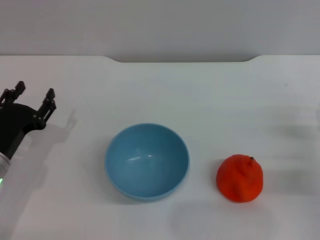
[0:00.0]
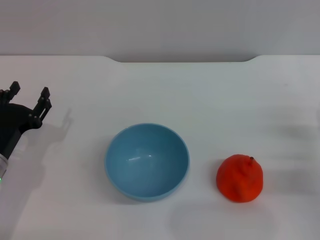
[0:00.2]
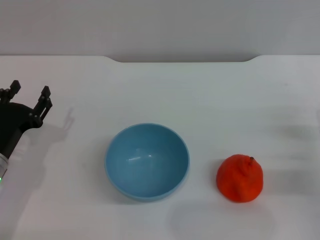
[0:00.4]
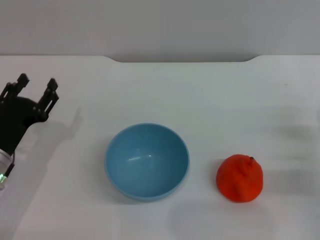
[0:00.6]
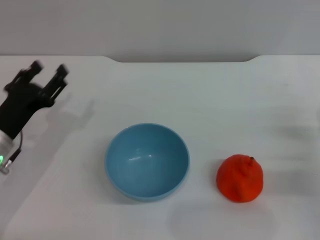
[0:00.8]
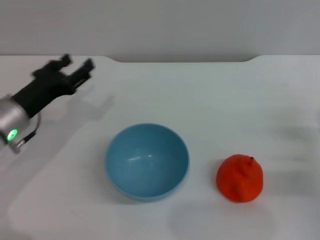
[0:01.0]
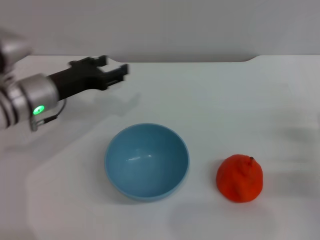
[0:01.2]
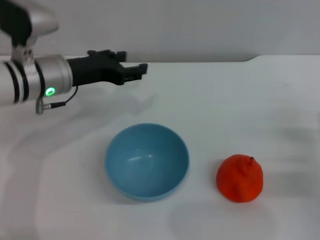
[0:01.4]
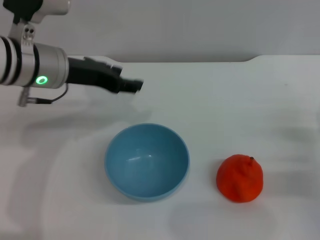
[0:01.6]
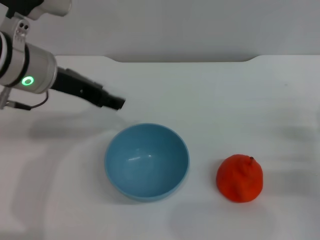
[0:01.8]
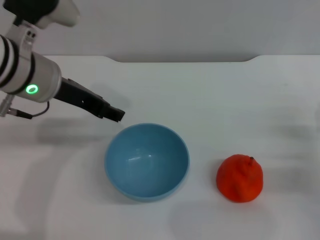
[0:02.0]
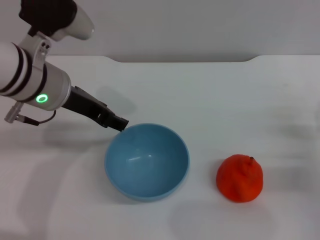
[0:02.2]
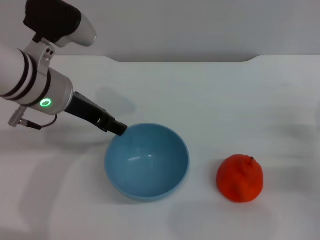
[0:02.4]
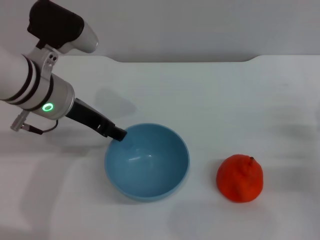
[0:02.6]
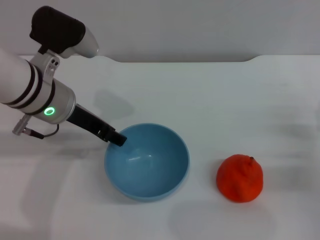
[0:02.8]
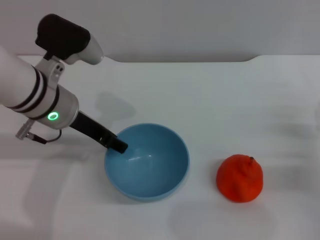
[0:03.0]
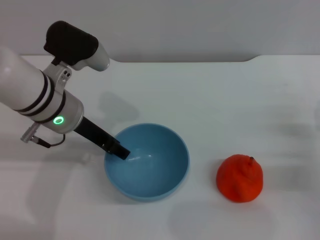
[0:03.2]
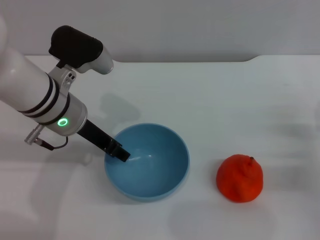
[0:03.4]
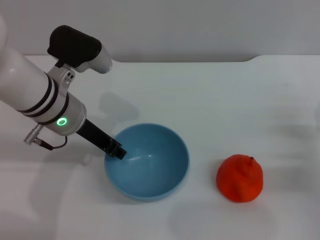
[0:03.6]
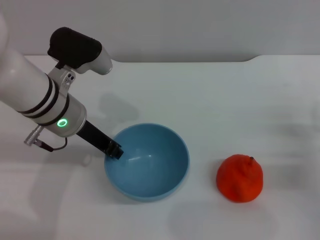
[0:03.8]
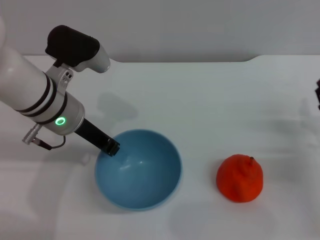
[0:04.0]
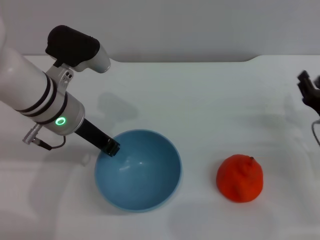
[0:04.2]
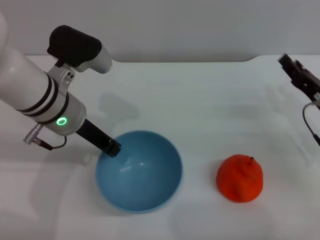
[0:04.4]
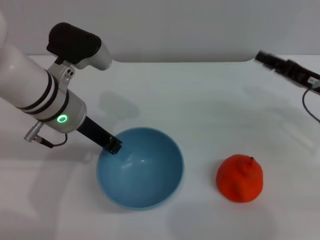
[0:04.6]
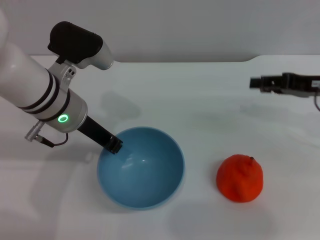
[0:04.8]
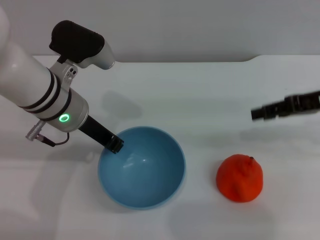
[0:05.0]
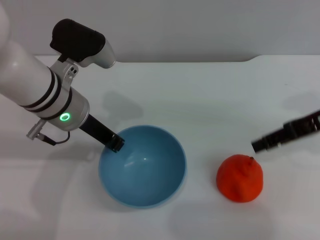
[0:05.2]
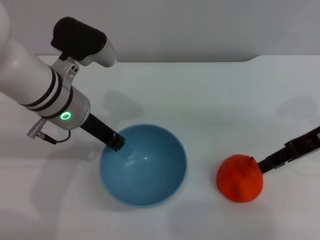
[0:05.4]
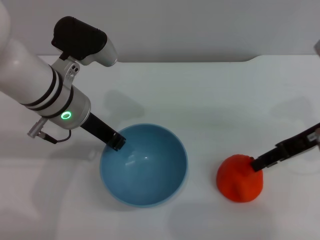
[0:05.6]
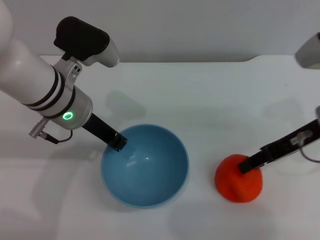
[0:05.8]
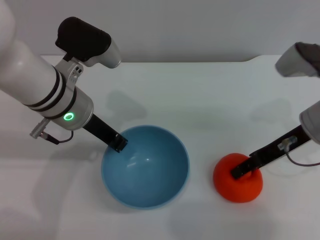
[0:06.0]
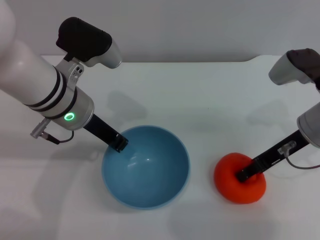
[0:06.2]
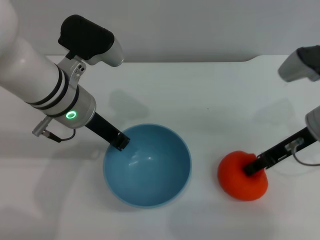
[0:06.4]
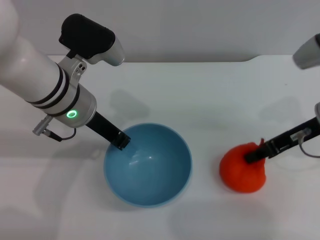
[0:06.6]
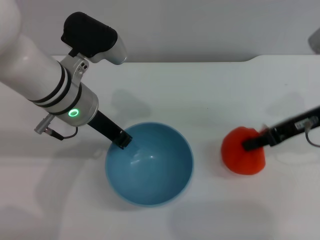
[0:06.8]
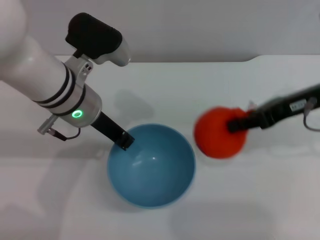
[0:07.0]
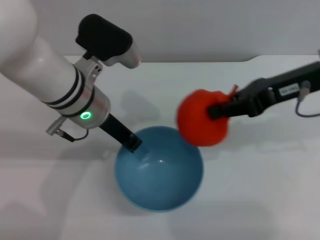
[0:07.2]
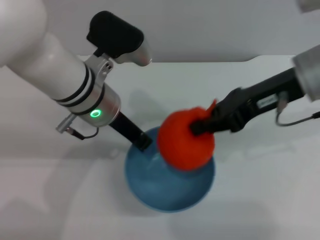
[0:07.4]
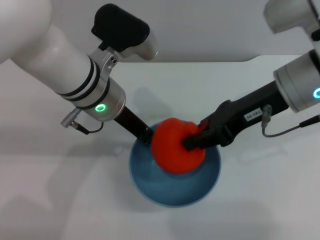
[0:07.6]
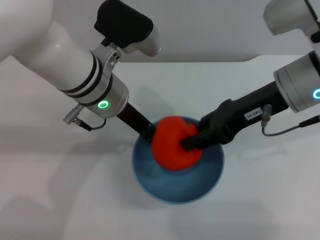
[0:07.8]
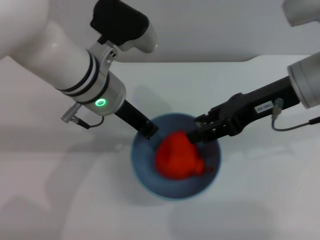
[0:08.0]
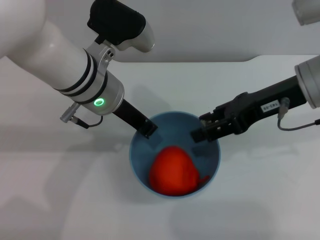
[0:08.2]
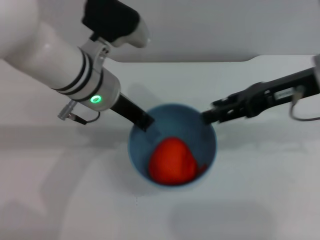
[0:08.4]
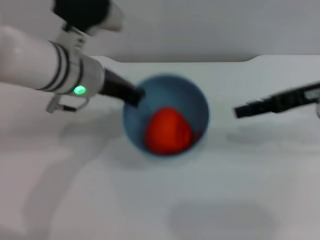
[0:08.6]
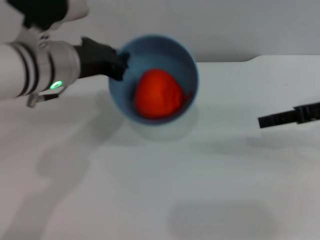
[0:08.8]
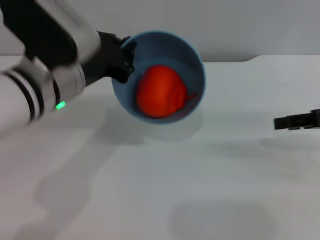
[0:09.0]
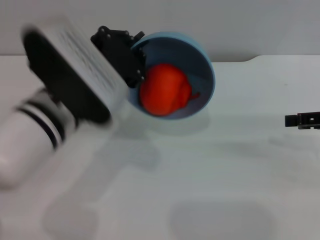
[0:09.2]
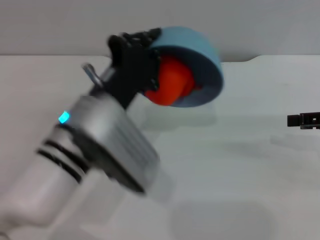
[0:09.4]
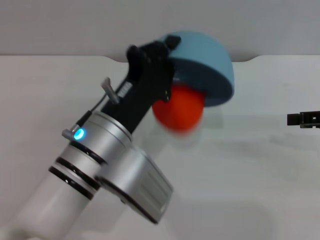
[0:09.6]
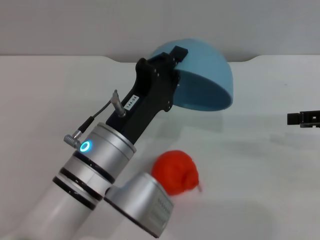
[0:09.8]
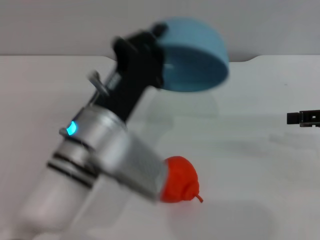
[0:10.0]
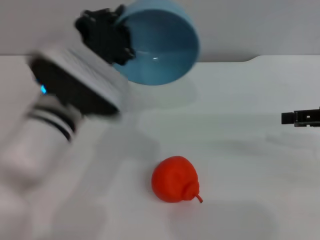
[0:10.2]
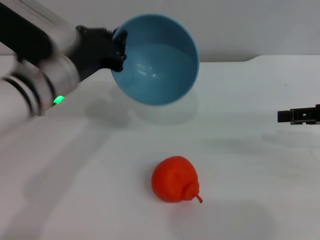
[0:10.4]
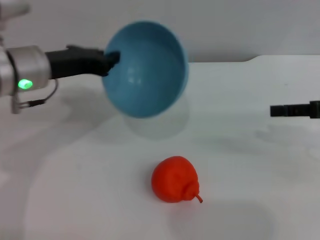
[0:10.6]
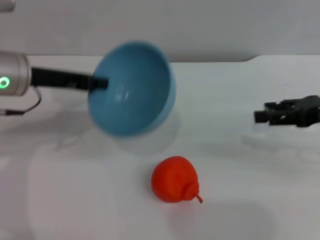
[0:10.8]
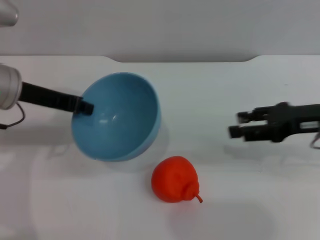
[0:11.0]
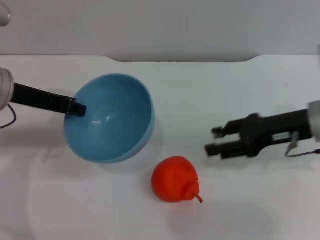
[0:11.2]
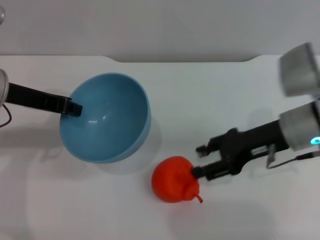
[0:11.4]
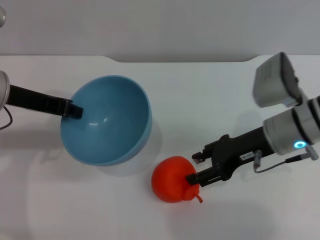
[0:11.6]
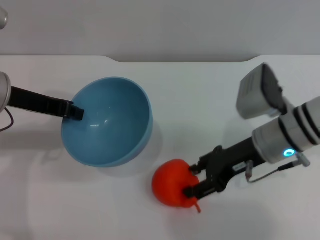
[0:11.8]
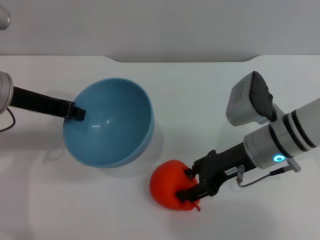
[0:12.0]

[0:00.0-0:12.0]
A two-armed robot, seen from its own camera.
Task of the whole recording: put the orange into the blue bowl and pour it out repeatedly.
Step, 0:00.0 to 0:05.6: Pick up the bowl with the left gripper.
Step, 0:05.8 to 0:06.8: Pick up the orange with the right gripper.
Step, 0:07.0 to 0:08.4: Place the orange into the bowl.
Step, 0:08.6 to 0:09.8: Pour the orange out of the bowl.
0:00.0 to 0:01.6: The left gripper shifts some 20 cm upward, forward and to the right.
0:03.0 to 0:04.4: The right gripper travels forward by some 5 cm; the left gripper closes its fingers.
0:04.4 to 0:06.0: The right gripper heads upward and to the left, covering approximately 10 cm.
0:06.0 to 0:07.6: The right gripper travels upward and to the left by about 10 cm, and closes its fingers.
0:07.6 to 0:09.0: The left gripper heads backward, covering some 5 cm. The right gripper shifts about 15 cm to the right, and opens its fingers.
0:09.0 to 0:10.4: The left gripper moves approximately 5 cm backward and comes back.
0:10.4 to 0:12.0: The left gripper heads to the left, covering some 5 cm, while the right gripper is displaced to the left and downward by roughly 20 cm.

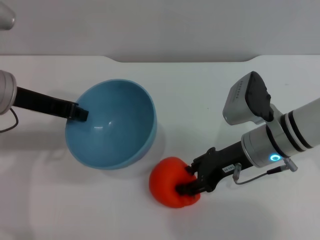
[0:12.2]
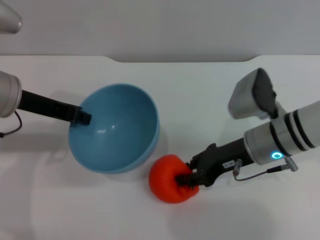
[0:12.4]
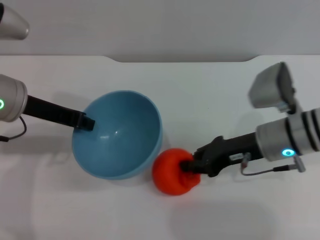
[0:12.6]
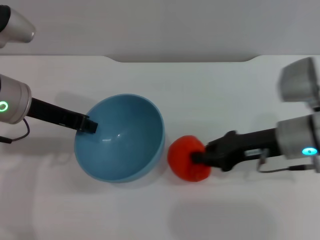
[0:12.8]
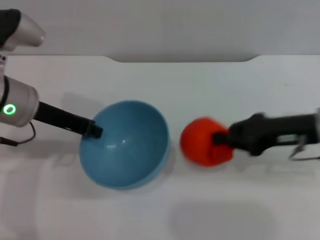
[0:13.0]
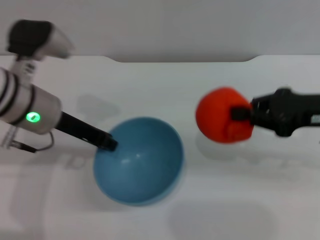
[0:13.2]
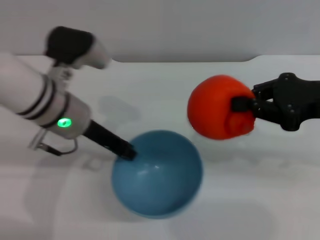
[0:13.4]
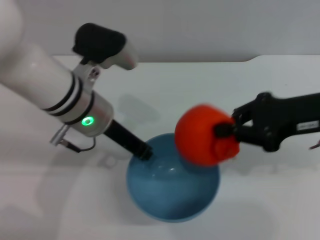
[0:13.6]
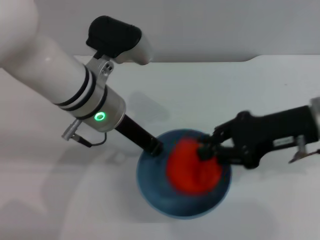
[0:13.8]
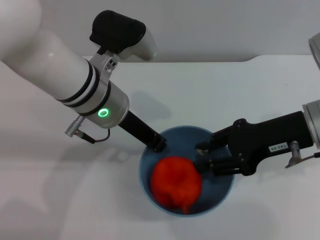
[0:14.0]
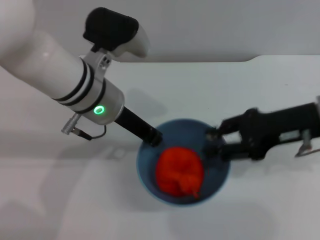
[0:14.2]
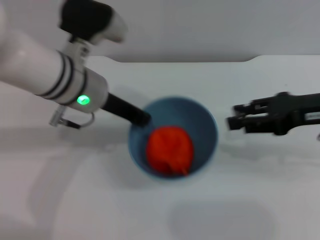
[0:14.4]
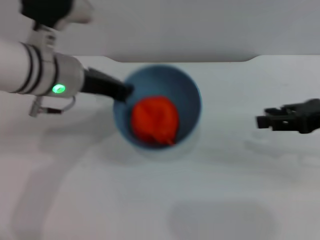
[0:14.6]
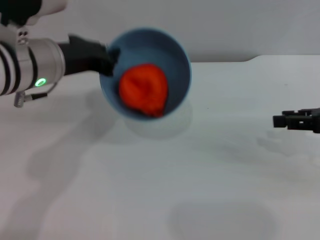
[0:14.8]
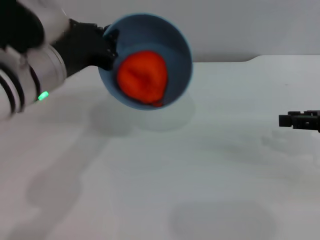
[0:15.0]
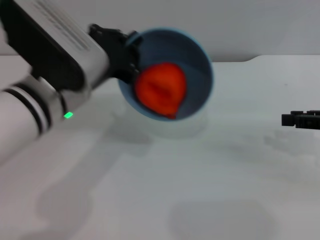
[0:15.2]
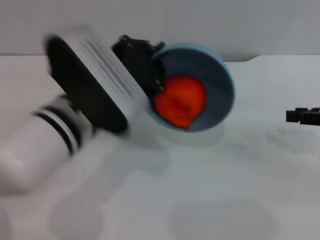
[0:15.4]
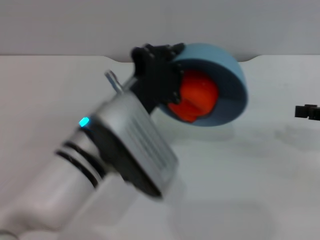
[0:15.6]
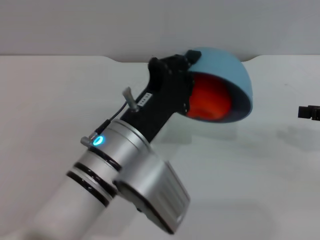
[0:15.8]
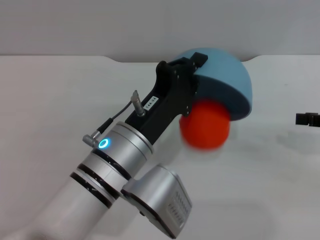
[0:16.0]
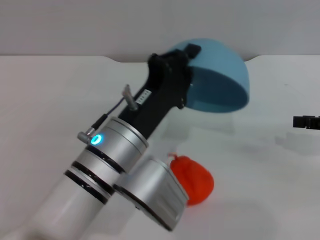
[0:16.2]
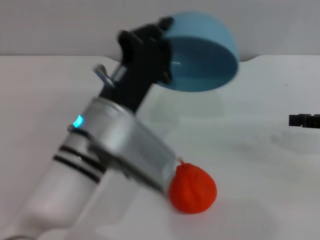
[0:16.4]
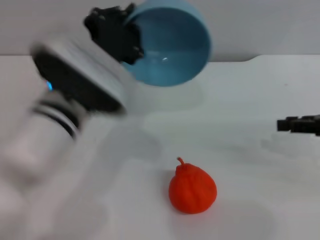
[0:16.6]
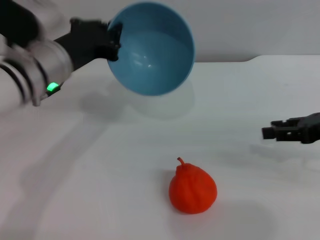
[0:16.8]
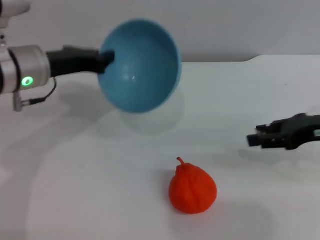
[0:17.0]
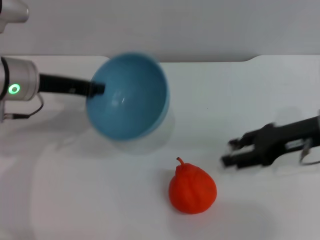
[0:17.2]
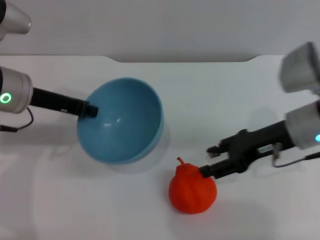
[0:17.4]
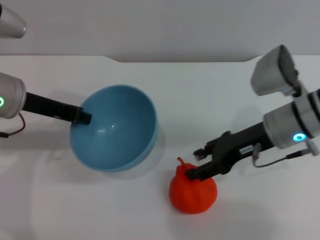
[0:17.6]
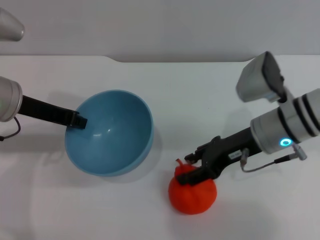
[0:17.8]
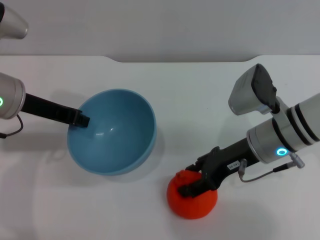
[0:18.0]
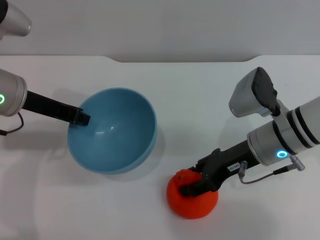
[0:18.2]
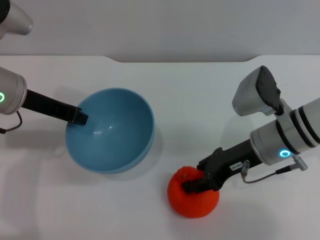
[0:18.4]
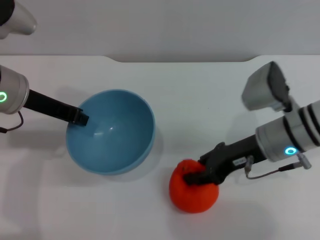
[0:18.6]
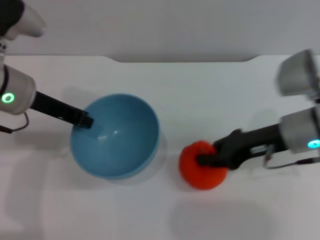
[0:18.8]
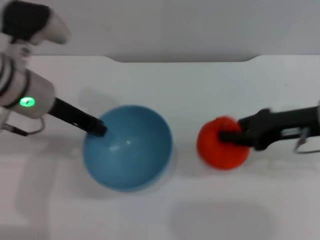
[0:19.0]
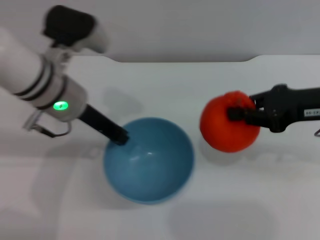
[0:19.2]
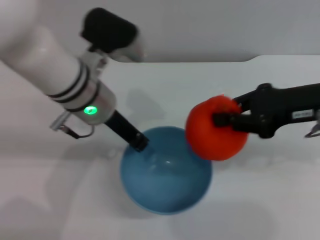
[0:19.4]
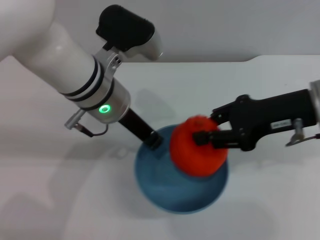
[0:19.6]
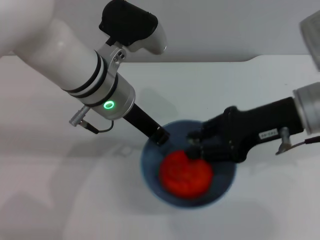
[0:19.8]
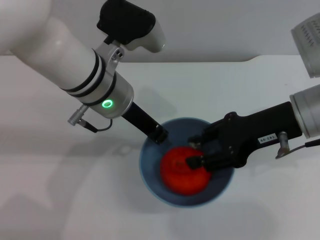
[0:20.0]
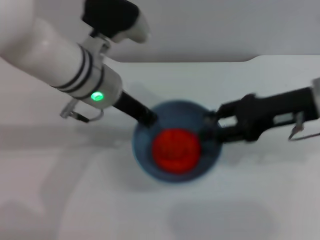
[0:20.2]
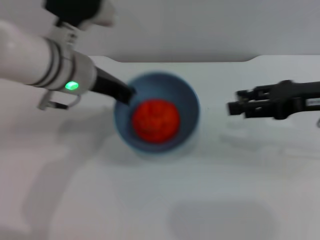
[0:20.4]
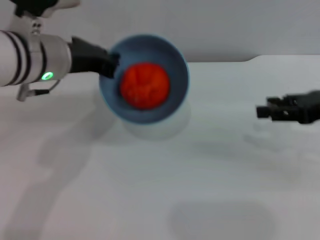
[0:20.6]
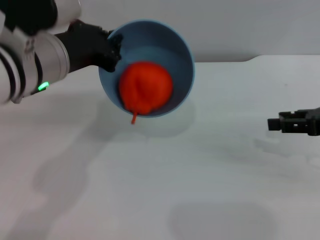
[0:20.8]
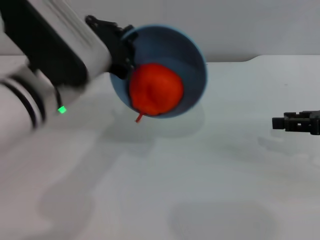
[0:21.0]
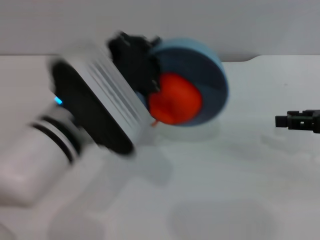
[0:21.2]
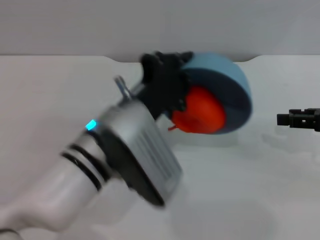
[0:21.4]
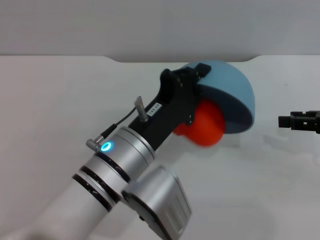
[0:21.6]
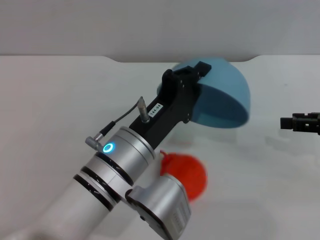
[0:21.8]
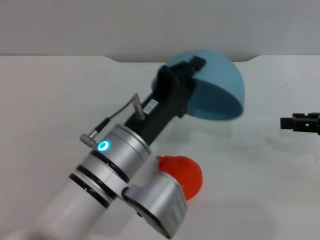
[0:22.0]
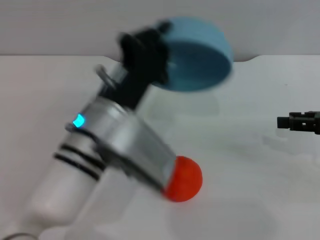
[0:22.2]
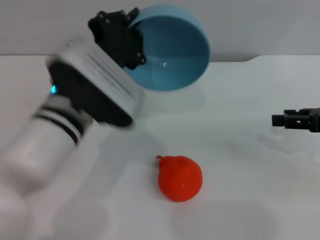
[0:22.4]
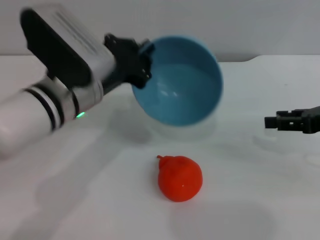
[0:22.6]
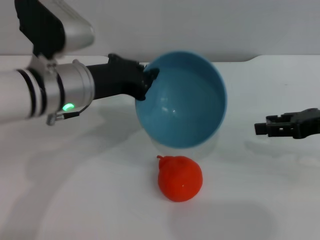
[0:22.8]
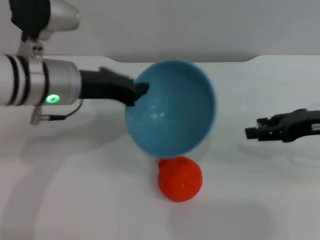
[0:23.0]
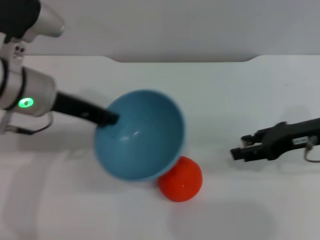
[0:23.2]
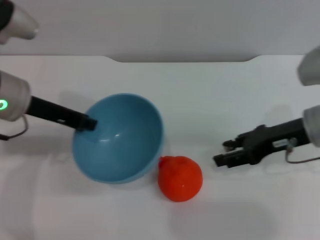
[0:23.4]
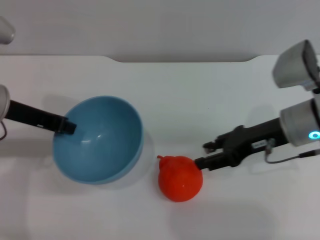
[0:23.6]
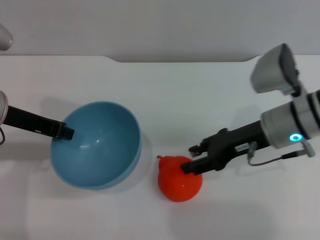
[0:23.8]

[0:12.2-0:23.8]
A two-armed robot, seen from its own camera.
Task of the whole recording: put the orange into the blue bowl and pour it out repeatedly.
Step, 0:13.2 to 0:14.2: Place the orange into the bowl.
Step, 0:14.4 to 0:16.2: Pour the orange out of the bowl.
Step, 0:16.6 to 0:18.8: Pick up the orange with the right gripper.
Step, 0:19.0 to 0:20.2: Place the orange into the bowl.
Step, 0:20.4 to 0:21.8: Pour the orange out of the bowl.
0:12.2 to 0:13.6: The right gripper is displaced upward and to the right by roughly 15 cm, and closes. Meanwhile the left gripper is displaced to the right by about 10 cm.
0:13.6 to 0:15.0: The right gripper moves to the right, about 10 cm, and opens up. The left gripper changes place by approximately 5 cm.
0:16.6 to 0:18.0: Both grippers travel together to the left, some 15 cm.
0:18.0 to 0:19.4: The right gripper goes roughly 15 cm upward and to the right, and closes its fingers. Meanwhile the left gripper shifts roughly 10 cm to the right.
0:19.4 to 0:21.0: The left gripper moves backward, about 5 cm. Meanwhile the right gripper shifts approximately 10 cm to the right, and opens.
0:22.4 to 0:23.8: Both grippers move to the left, roughly 15 cm.
